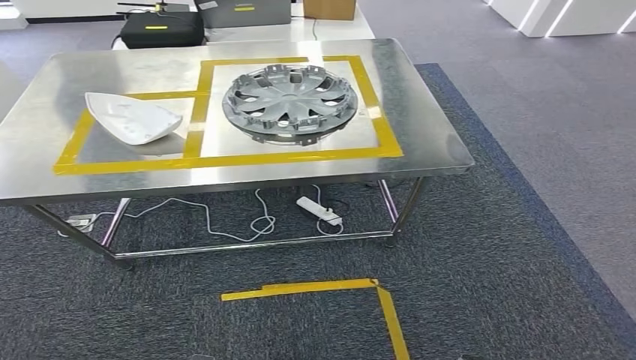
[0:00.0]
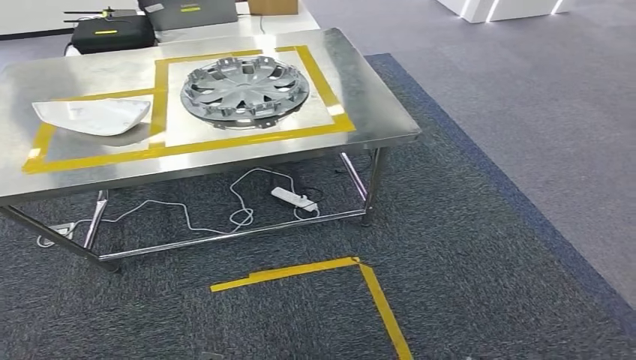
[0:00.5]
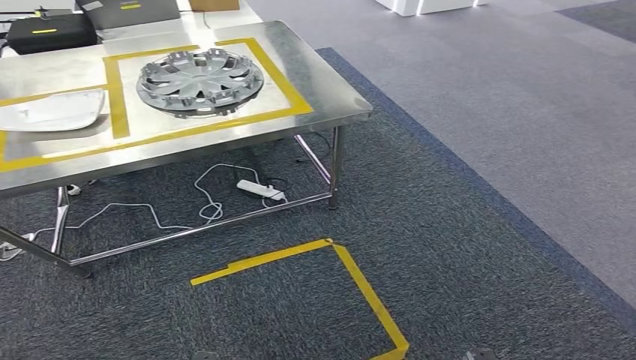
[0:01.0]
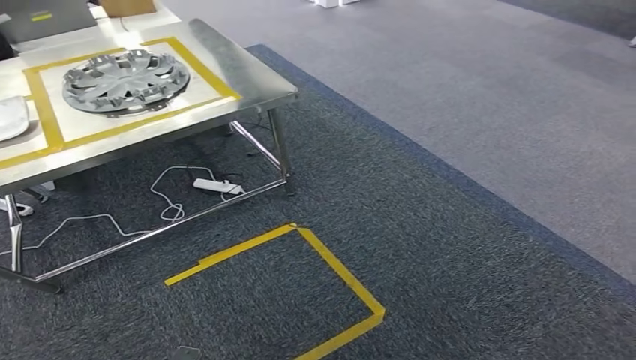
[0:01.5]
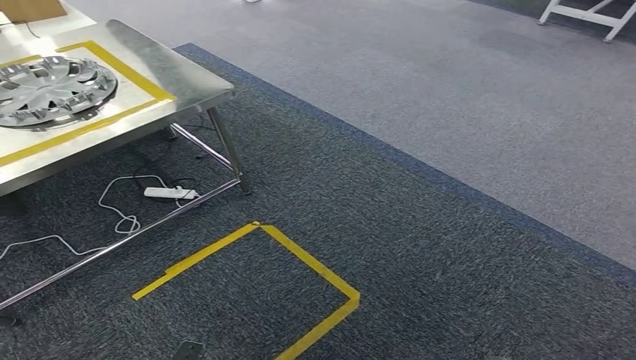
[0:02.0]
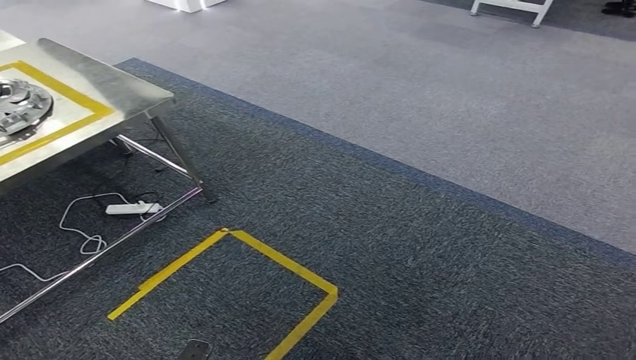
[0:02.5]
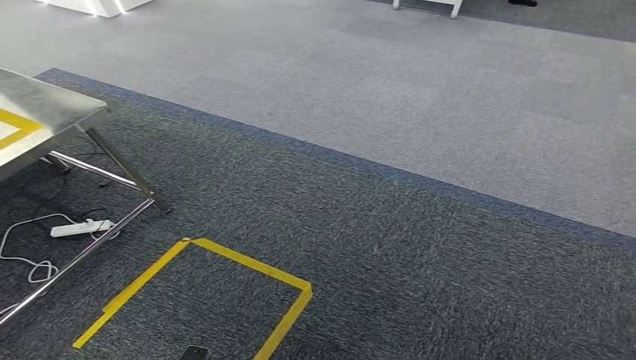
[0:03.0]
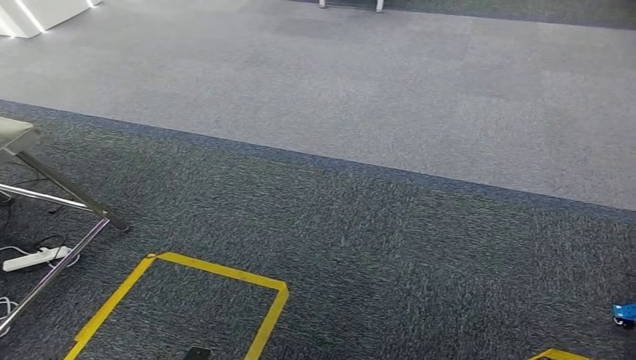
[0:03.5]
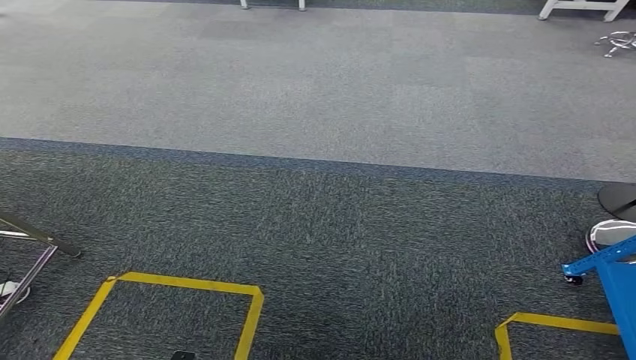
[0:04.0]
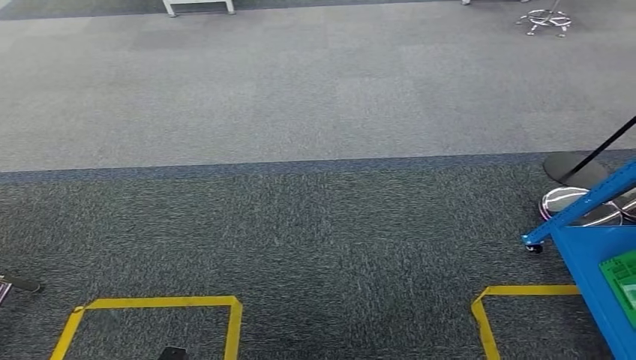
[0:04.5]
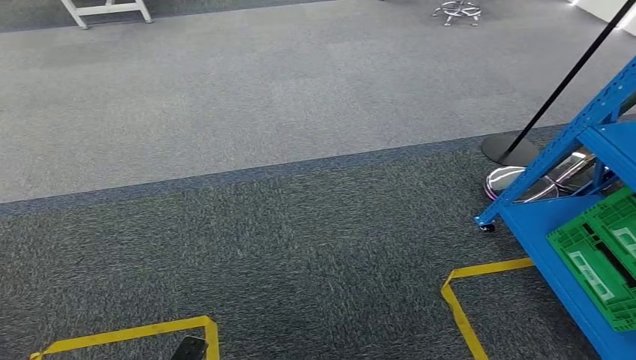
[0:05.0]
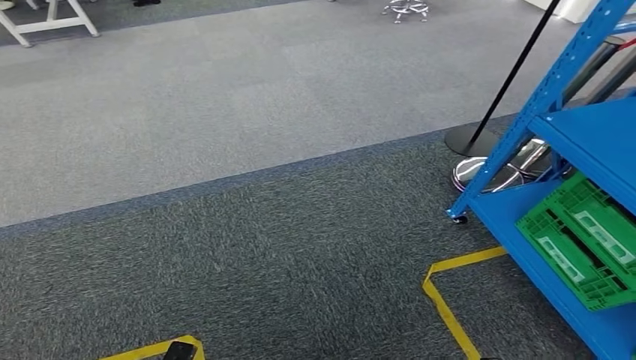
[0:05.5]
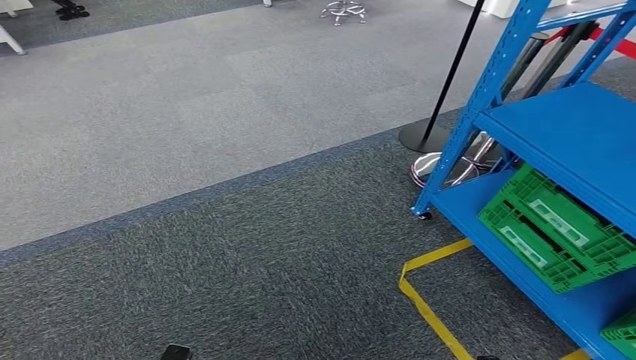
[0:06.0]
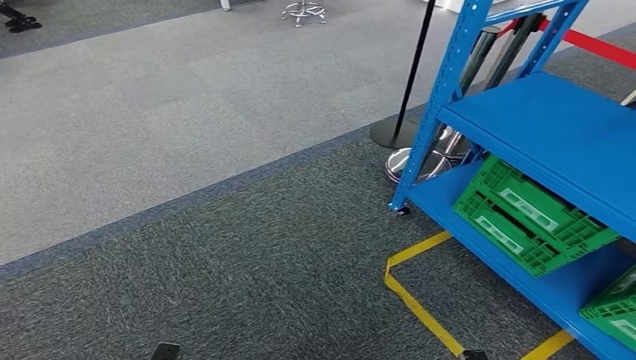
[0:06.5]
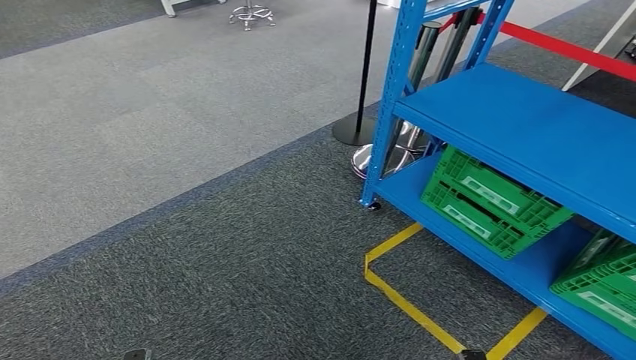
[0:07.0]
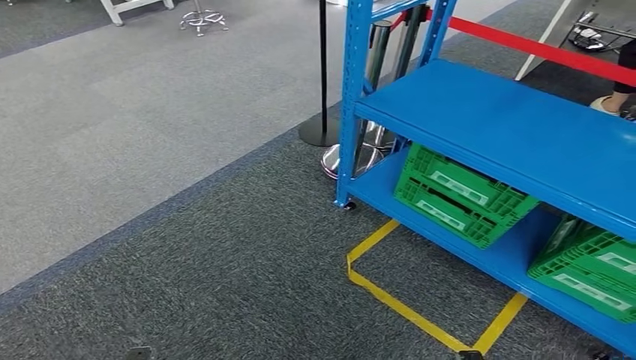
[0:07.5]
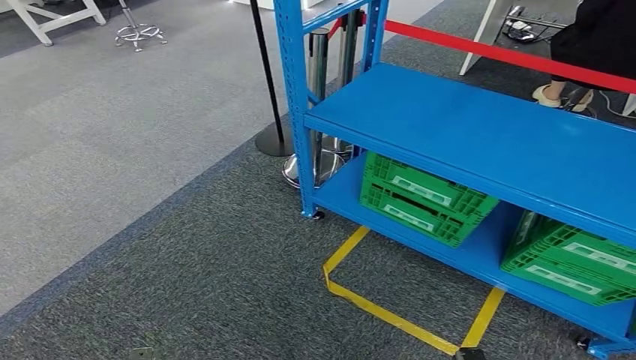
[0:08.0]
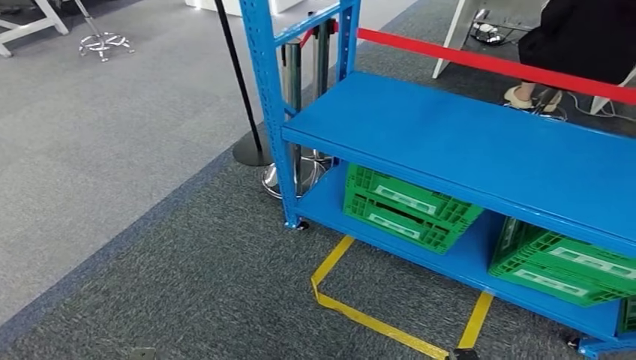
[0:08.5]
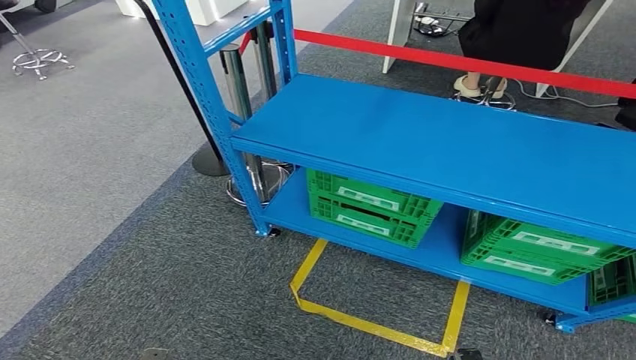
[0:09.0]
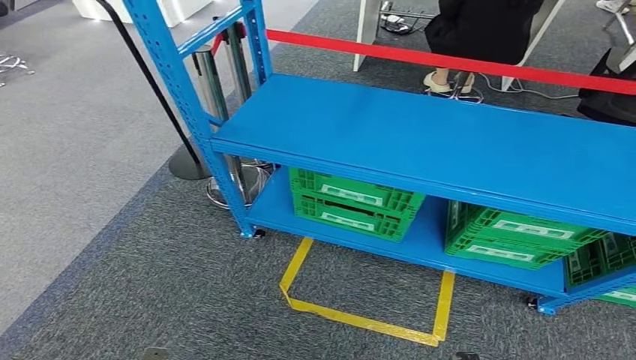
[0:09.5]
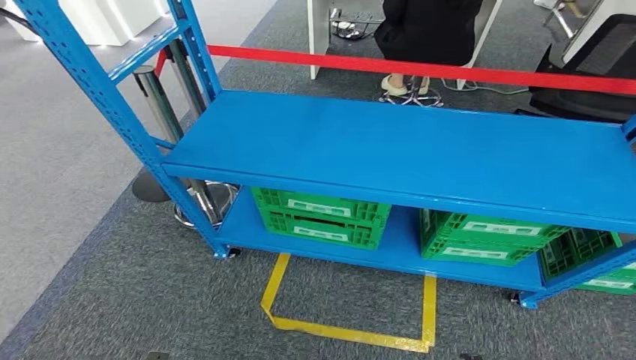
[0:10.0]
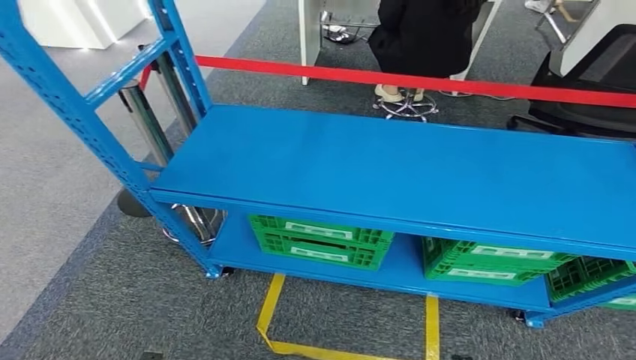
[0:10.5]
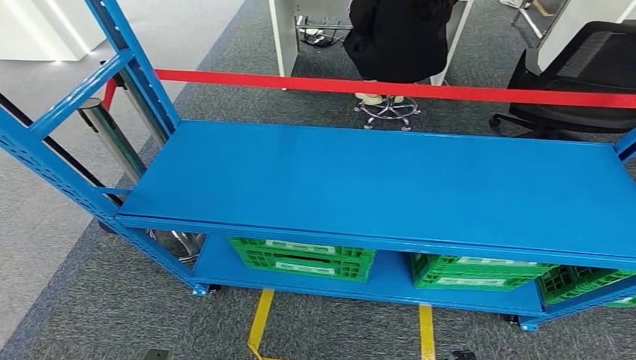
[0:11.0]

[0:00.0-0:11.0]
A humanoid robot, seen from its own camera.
Step, 0:00.0 to 0:04.5: Insert the small component into the corresponding slot on the workbench.
Step, 0:05.0 to 0:11.0: Return to the initial position at the workbench.
